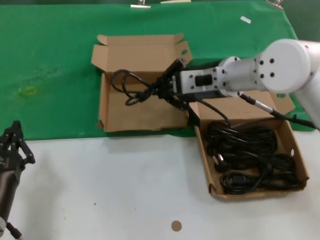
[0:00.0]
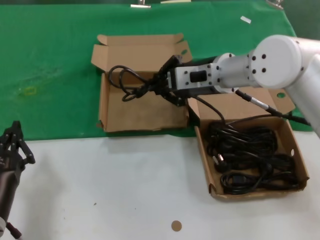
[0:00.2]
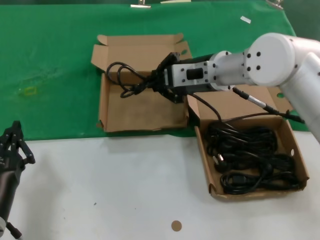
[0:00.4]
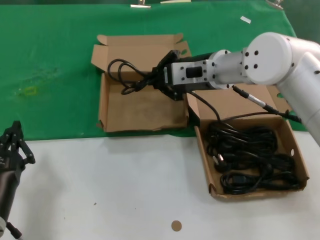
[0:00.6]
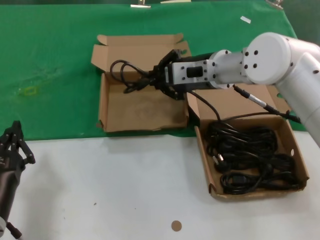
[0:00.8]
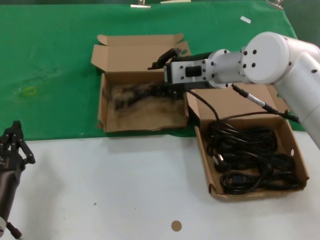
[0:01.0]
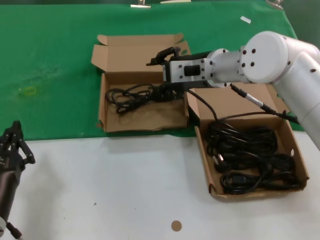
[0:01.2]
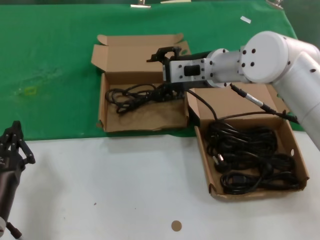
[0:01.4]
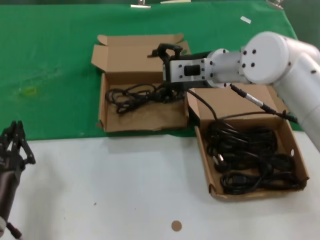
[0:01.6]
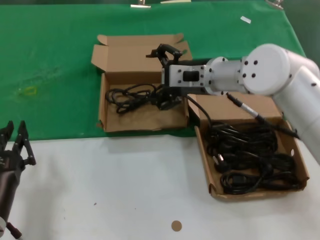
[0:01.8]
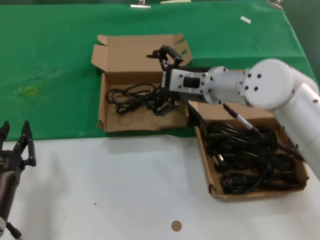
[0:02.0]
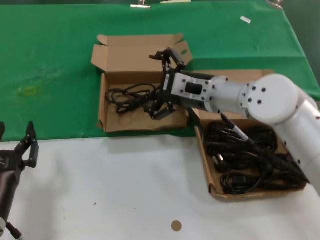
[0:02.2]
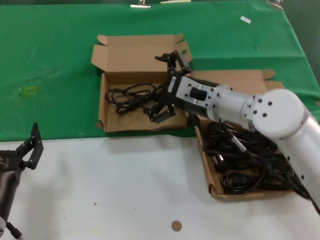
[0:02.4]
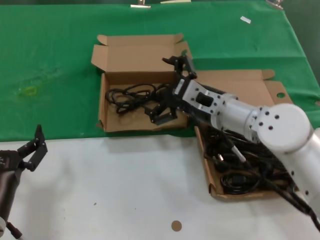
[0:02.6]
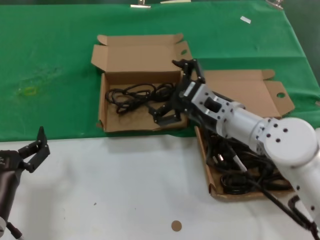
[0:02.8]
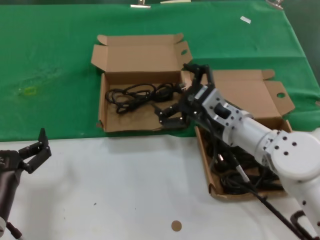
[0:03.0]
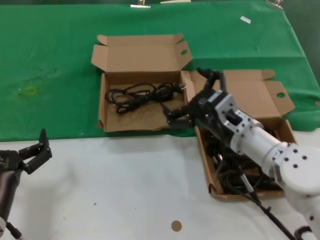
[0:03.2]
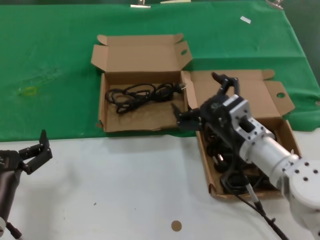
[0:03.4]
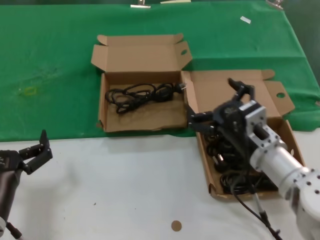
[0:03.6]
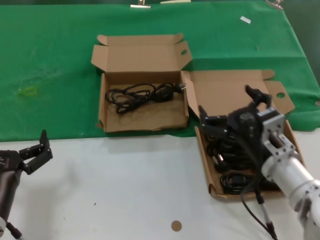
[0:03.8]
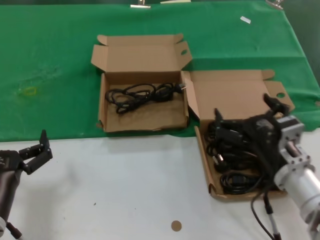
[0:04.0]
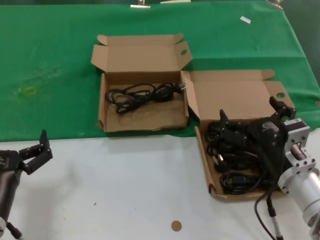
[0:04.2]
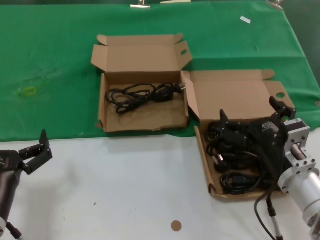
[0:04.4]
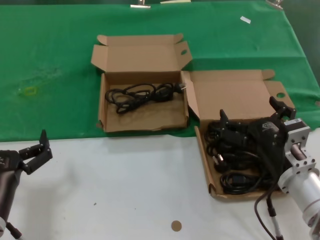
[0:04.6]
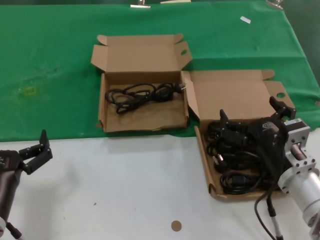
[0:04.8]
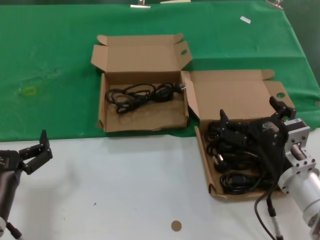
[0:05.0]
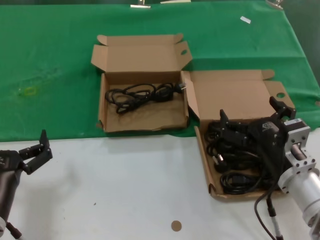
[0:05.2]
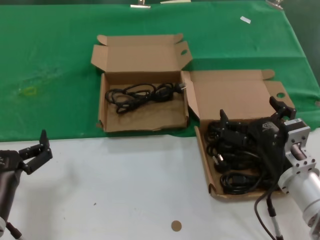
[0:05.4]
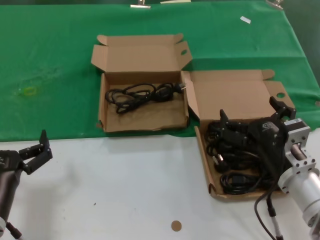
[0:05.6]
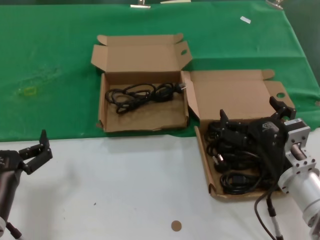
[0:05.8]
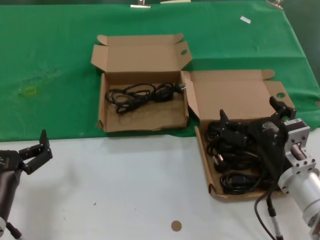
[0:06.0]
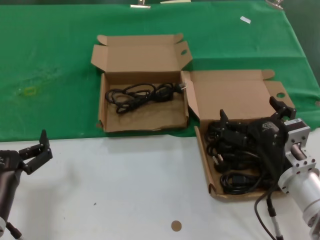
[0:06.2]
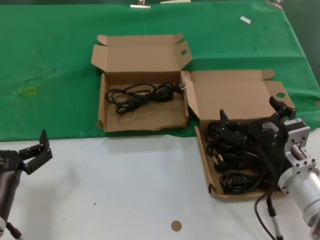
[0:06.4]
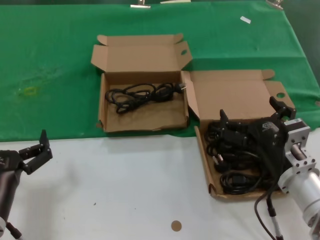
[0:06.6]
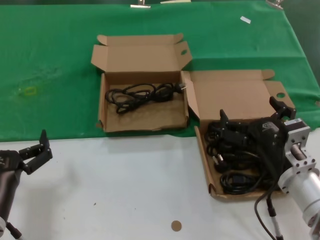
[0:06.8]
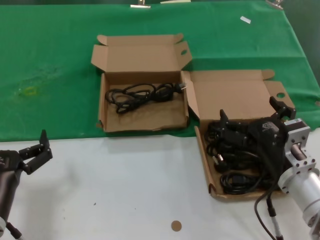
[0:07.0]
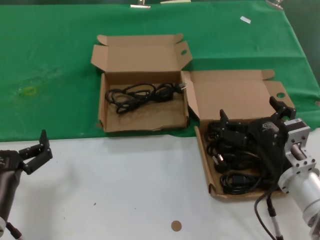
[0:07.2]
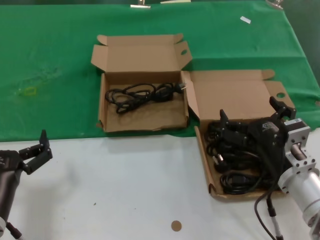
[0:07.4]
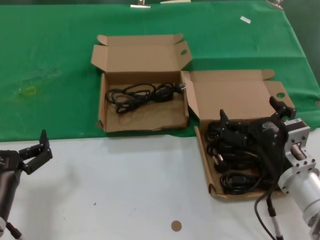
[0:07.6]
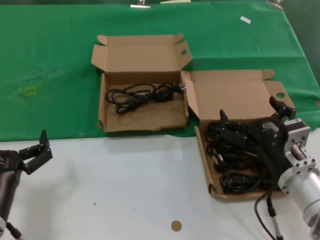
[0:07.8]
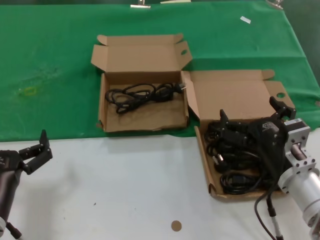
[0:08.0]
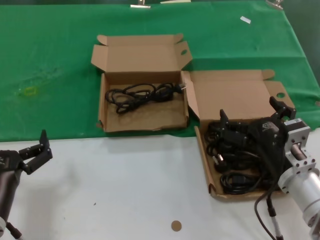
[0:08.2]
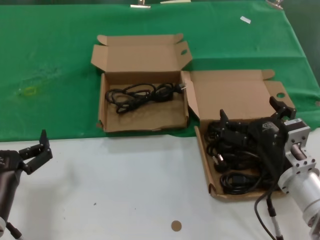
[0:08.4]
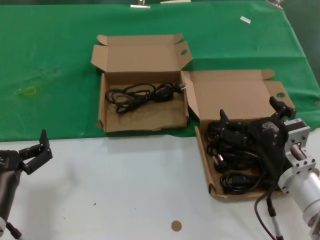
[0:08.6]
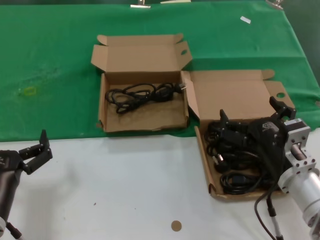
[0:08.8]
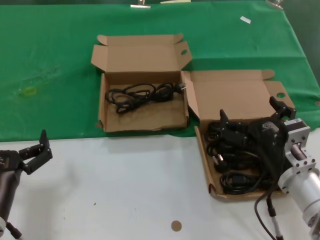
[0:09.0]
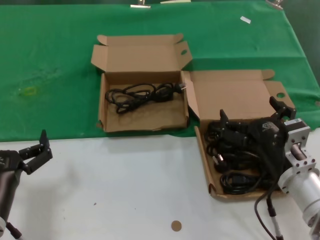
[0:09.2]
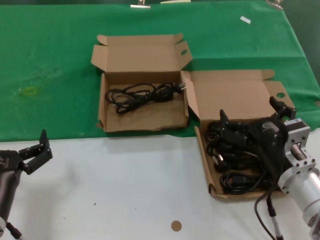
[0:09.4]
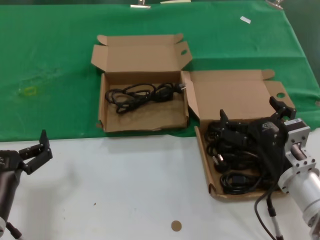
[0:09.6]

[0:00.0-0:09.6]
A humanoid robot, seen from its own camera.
Task of the whole recording: take the parts from the box containing them and put them into an empty box.
0:00.0 to 0:01.6: The hands stay close to where they were, moving slightly.
0:01.6 to 0:03.2: The right hand moves downward and backward, some 15 cm.
0:03.2 to 0:04.8: The right hand is displaced backward and to the right by about 10 cm.
0:04.8 to 0:09.6: Both hands stay put.

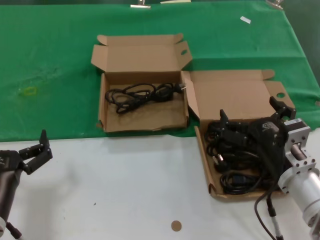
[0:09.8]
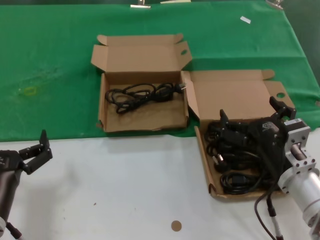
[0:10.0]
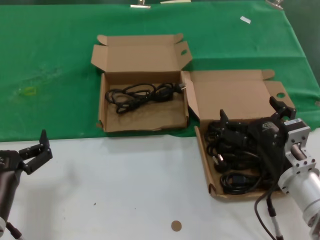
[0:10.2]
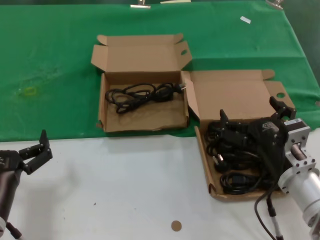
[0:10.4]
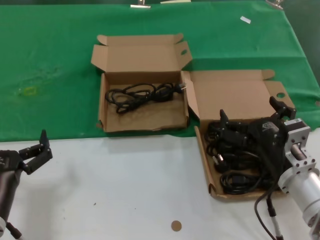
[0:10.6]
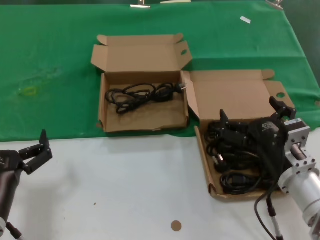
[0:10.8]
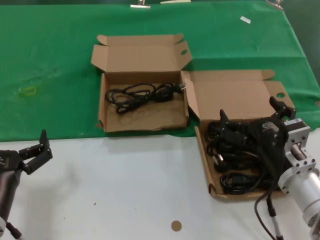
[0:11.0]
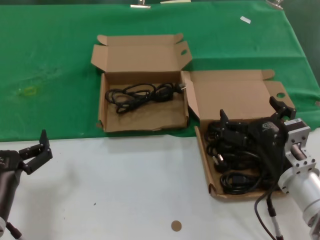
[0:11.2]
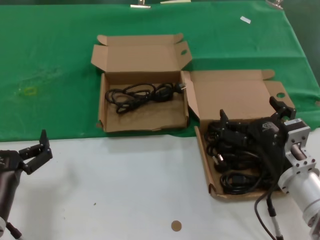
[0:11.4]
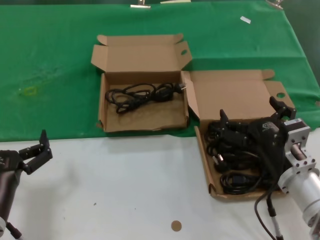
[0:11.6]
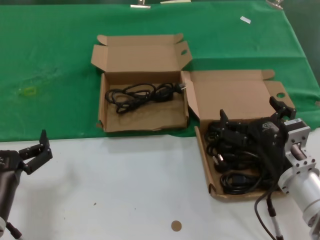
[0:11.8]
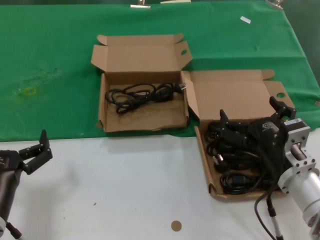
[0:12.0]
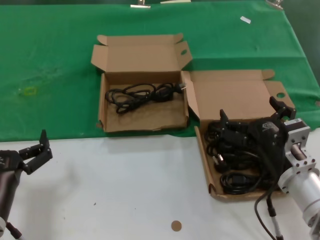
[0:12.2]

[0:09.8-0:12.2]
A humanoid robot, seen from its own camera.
Task of the whole recording: take the parts from the box containing them and put them into an empty box.
0:09.8 to 0:12.2: Both hands stay put.

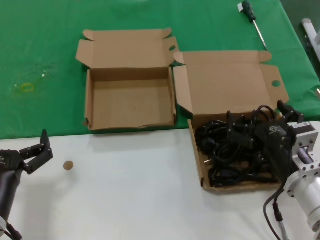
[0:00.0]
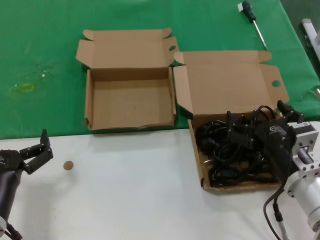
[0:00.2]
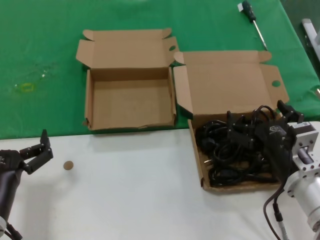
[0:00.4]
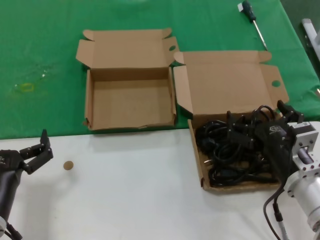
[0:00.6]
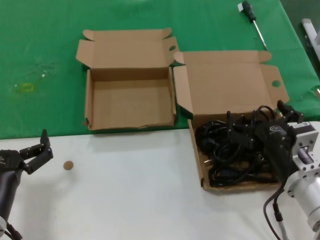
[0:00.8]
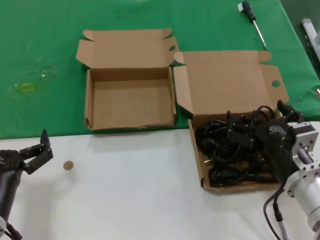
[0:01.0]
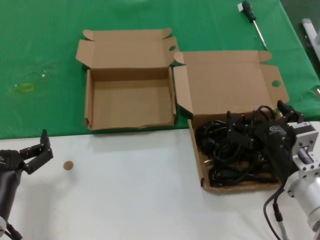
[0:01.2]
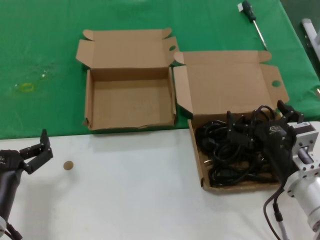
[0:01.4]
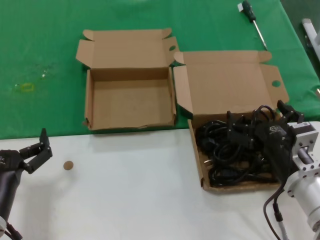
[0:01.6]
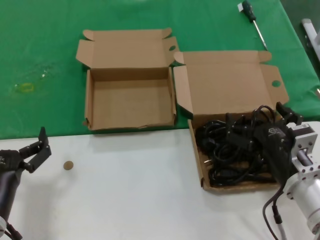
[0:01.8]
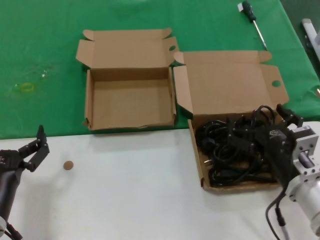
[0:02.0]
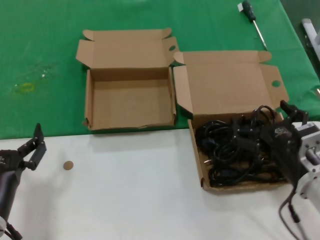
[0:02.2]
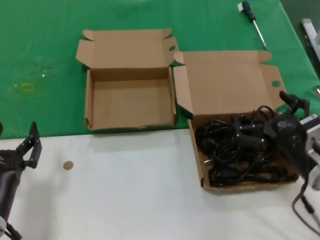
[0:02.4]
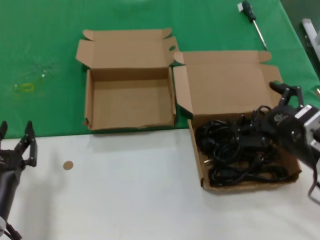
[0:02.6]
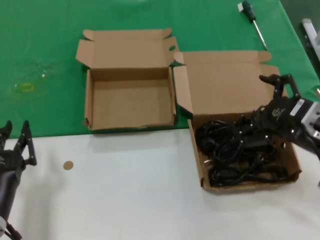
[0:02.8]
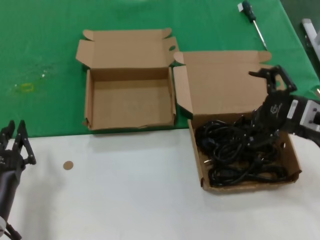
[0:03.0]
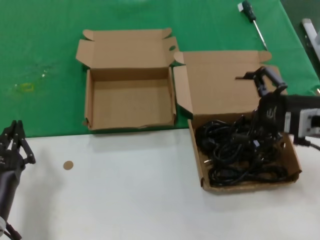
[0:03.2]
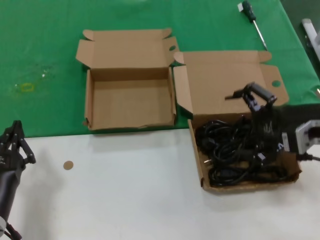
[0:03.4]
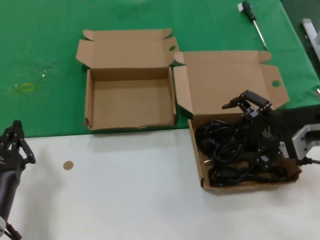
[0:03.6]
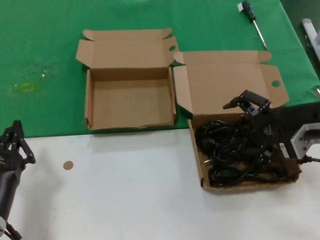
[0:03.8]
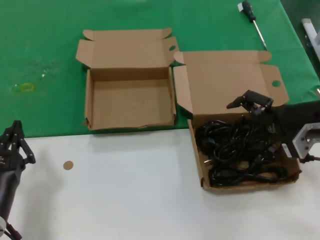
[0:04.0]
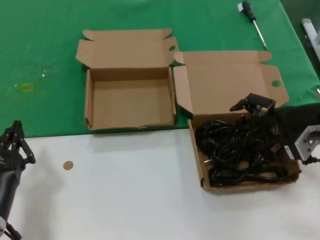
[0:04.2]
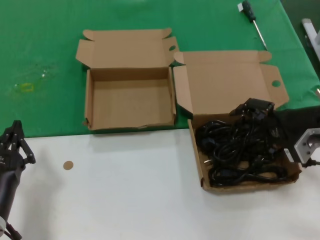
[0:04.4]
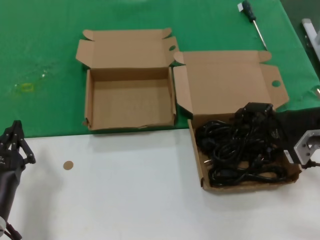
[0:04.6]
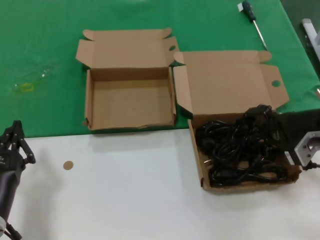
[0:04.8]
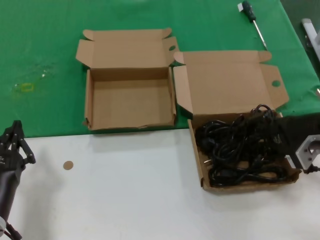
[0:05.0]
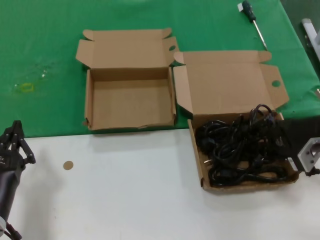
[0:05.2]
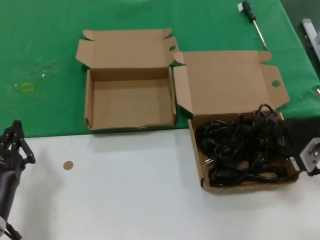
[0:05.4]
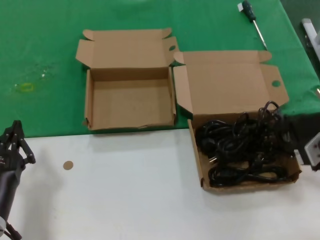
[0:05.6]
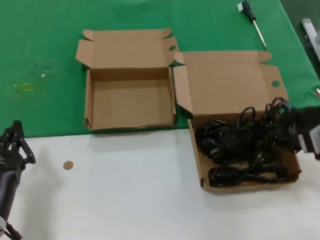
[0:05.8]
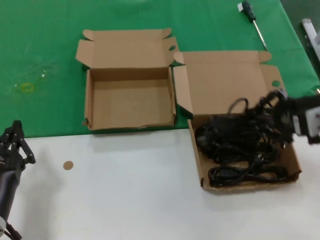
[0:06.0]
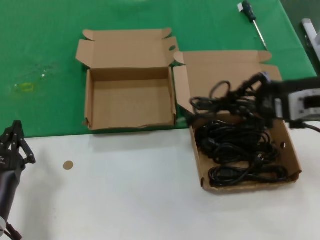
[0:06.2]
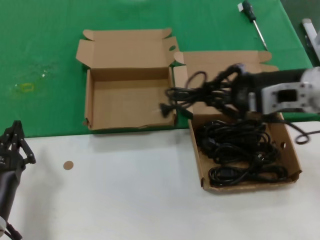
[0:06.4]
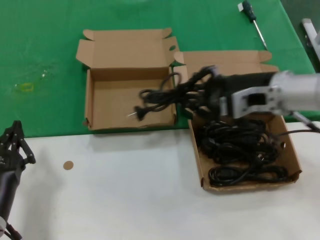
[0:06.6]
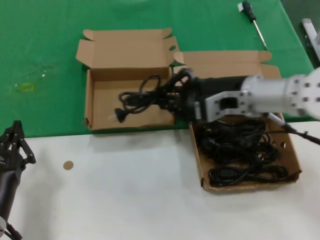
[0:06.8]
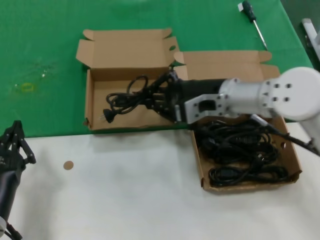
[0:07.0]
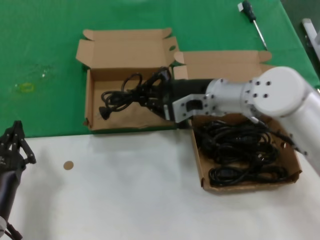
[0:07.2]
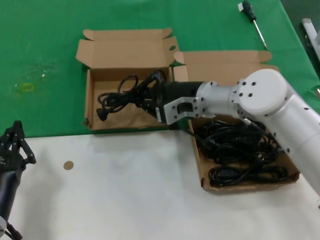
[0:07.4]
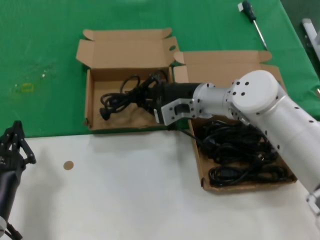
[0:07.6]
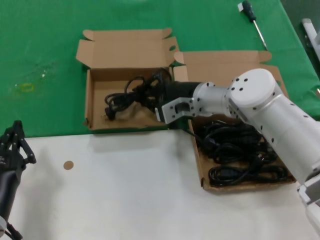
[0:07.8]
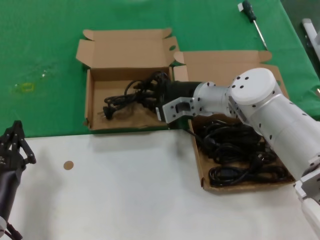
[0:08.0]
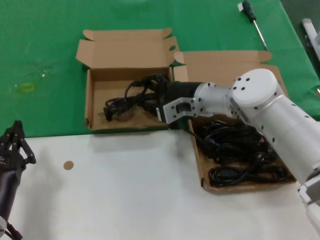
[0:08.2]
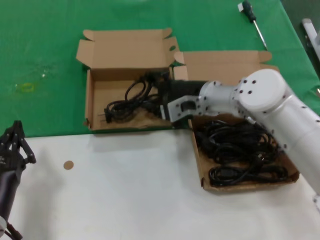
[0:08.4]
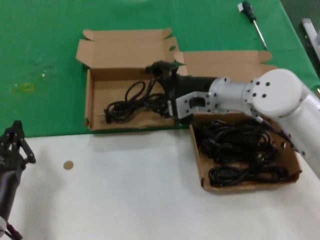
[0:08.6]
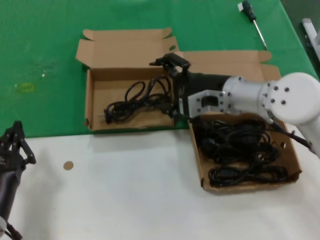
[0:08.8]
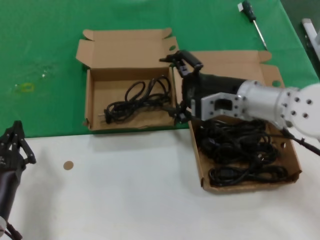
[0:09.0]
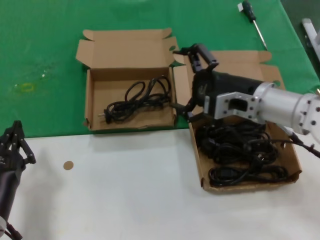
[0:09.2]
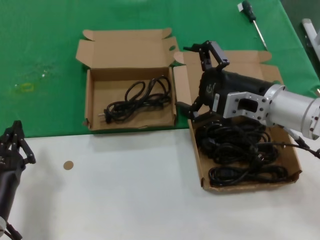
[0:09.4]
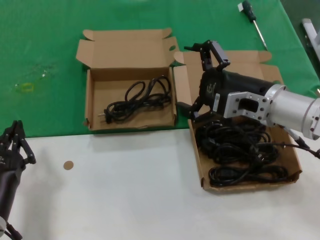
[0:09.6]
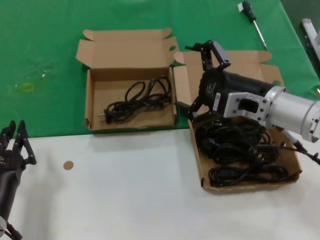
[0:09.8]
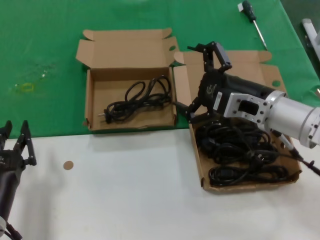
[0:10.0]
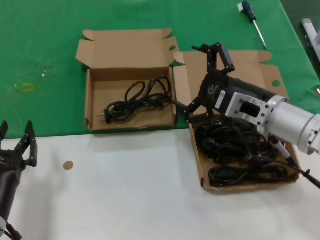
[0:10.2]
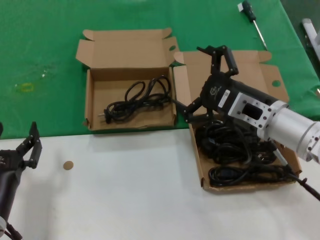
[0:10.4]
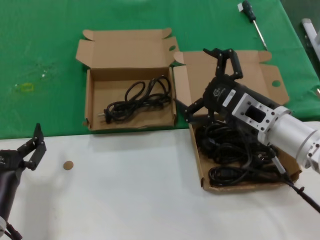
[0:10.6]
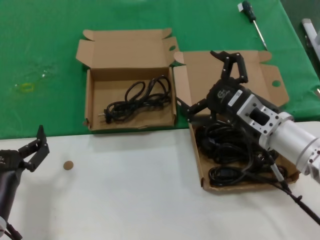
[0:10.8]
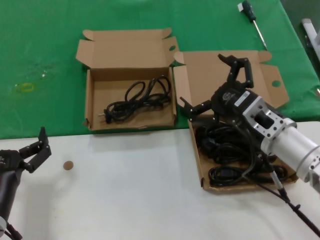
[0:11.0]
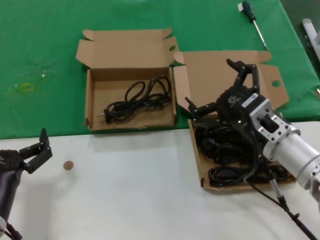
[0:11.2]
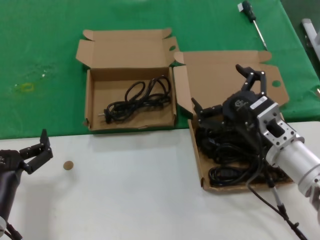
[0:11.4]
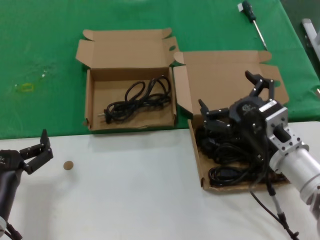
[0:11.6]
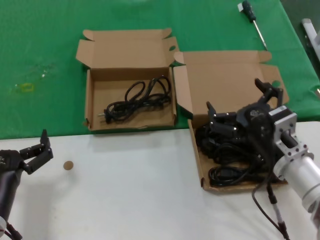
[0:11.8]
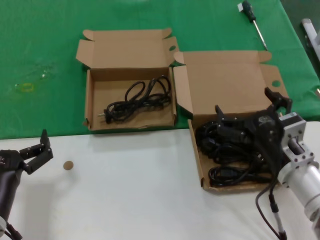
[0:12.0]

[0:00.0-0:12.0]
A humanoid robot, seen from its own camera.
Task of the whole recording: take the parts from the box containing them and put them into an empty box.
Step, 0:00.0 to 0:05.2: Grasp the data cable.
Step, 0:05.6 to 0:08.4: Place the data cable in the another box.
0:00.0 to 0:01.6: Neither hand changes place.
0:01.6 to 0:03.0: The right hand shifts some 15 cm upward and to the right.
0:03.0 to 0:04.4: The right hand travels forward by approximately 5 cm.
0:04.4 to 0:06.0: The right hand travels upward by roughly 5 cm.
0:06.0 to 0:07.6: The right hand is displaced to the left and forward by approximately 25 cm.
0:07.6 to 0:09.0: The right hand heads backward and to the right, covering approximately 10 cm.
0:09.0 to 0:10.4: The right hand travels backward by approximately 5 cm.
0:10.4 to 0:12.0: The right hand travels downward and backward by roughly 10 cm.
